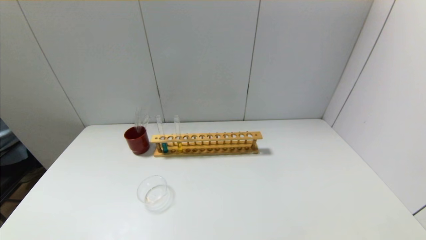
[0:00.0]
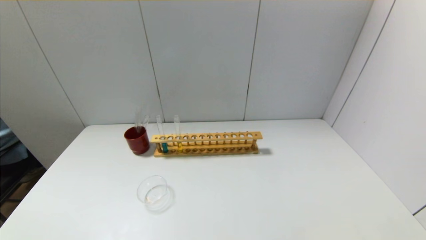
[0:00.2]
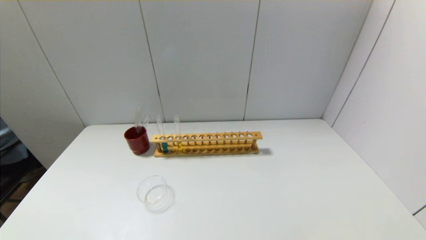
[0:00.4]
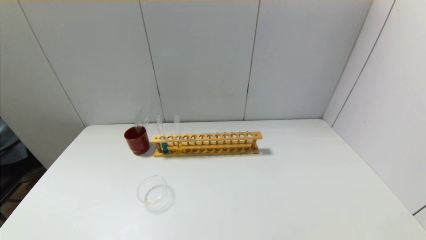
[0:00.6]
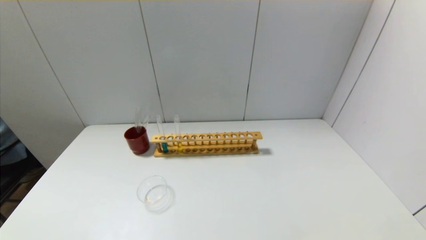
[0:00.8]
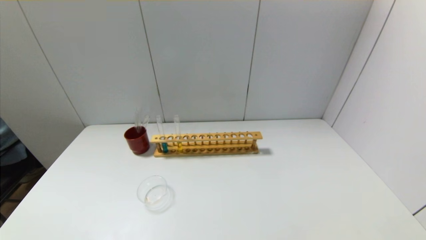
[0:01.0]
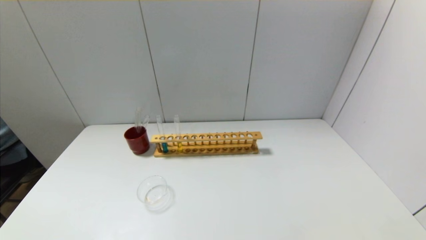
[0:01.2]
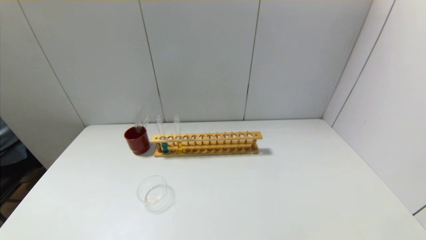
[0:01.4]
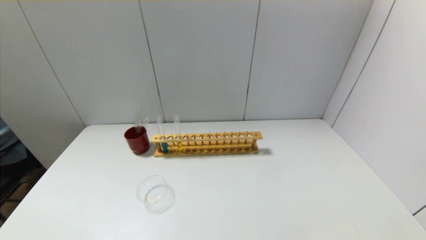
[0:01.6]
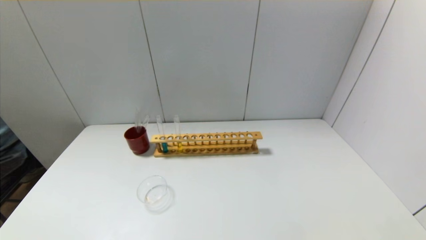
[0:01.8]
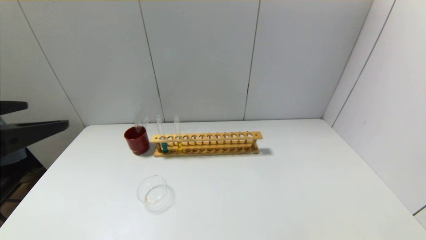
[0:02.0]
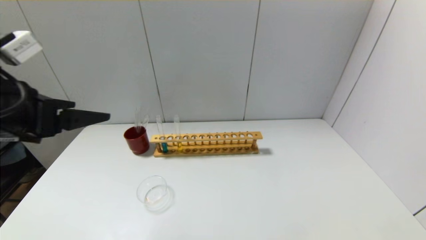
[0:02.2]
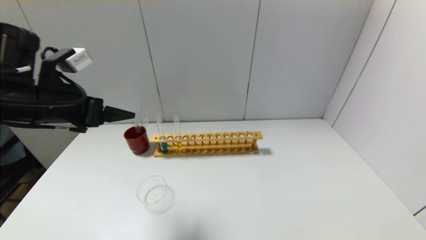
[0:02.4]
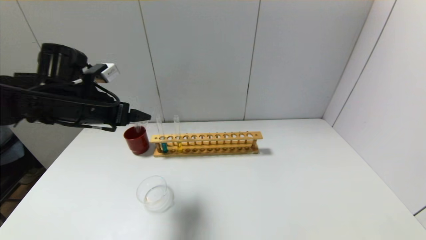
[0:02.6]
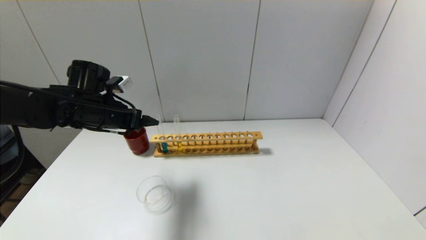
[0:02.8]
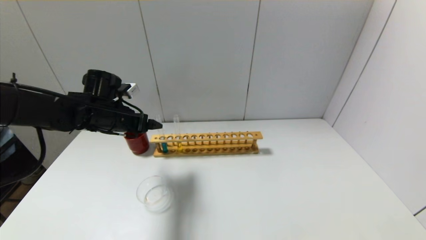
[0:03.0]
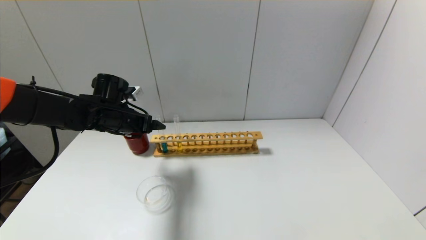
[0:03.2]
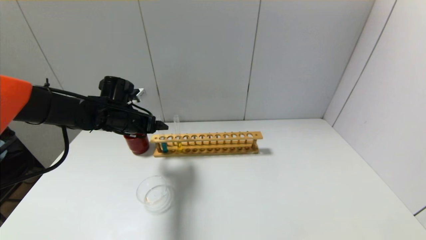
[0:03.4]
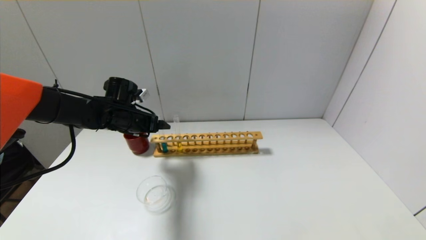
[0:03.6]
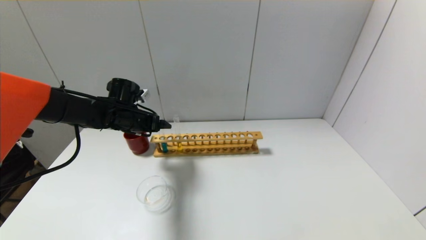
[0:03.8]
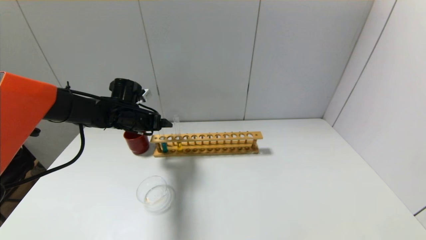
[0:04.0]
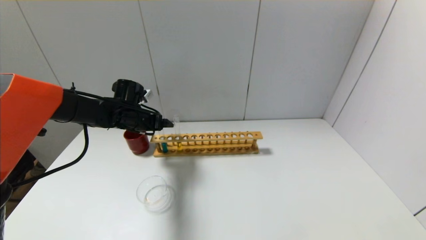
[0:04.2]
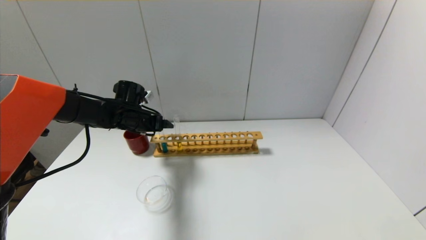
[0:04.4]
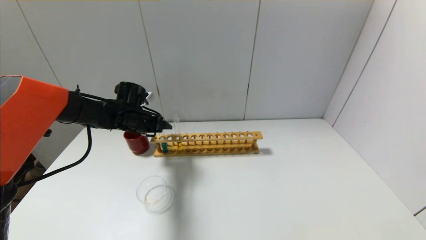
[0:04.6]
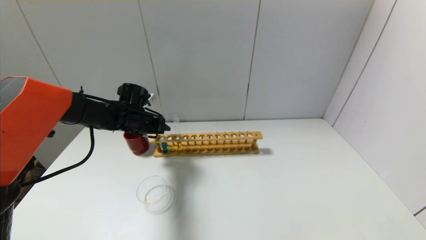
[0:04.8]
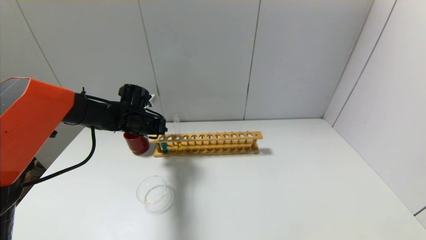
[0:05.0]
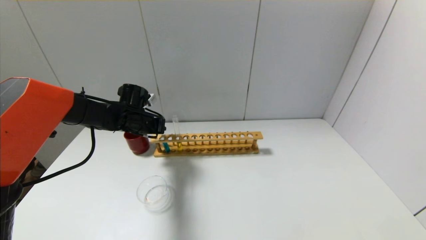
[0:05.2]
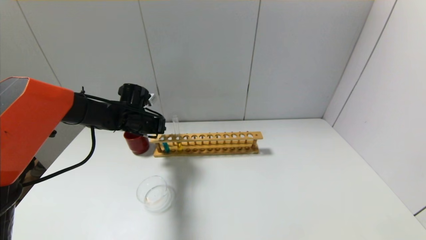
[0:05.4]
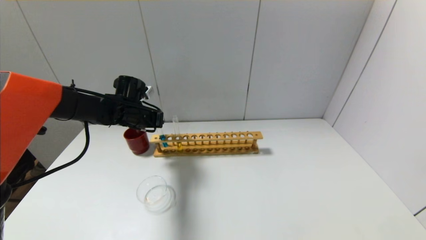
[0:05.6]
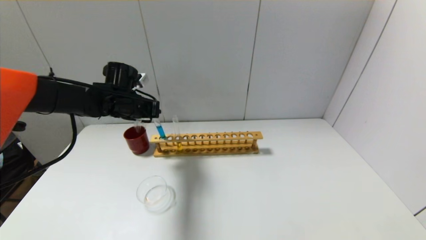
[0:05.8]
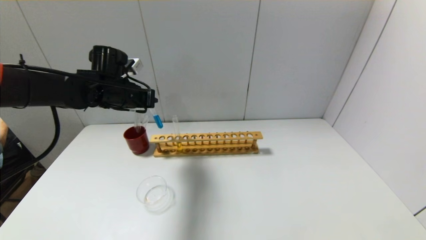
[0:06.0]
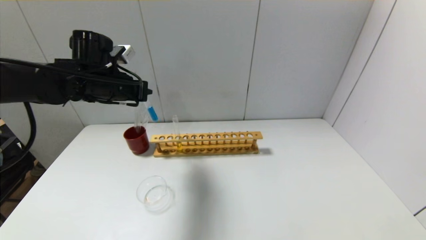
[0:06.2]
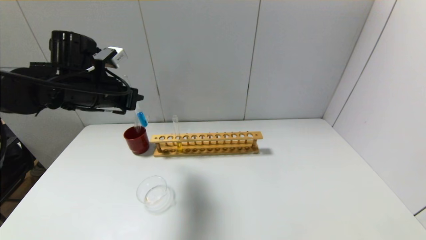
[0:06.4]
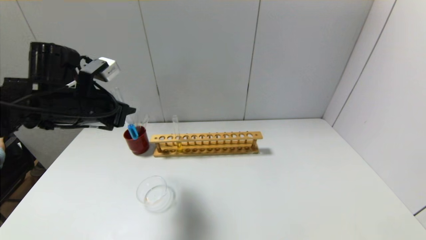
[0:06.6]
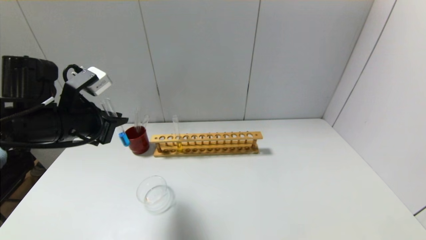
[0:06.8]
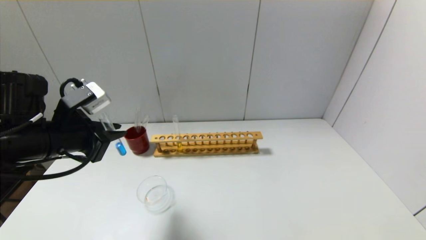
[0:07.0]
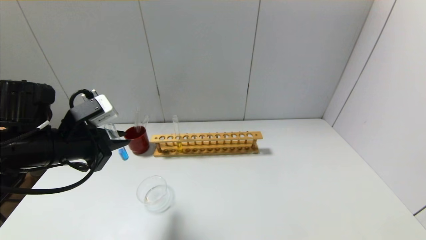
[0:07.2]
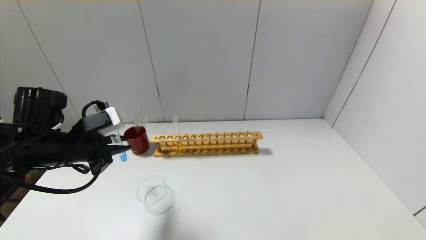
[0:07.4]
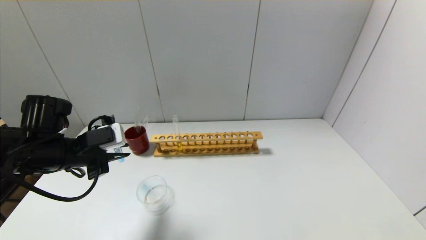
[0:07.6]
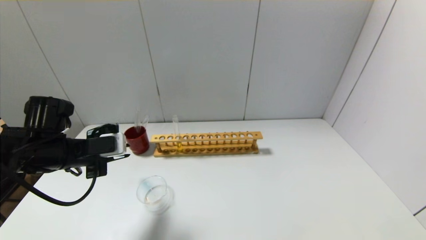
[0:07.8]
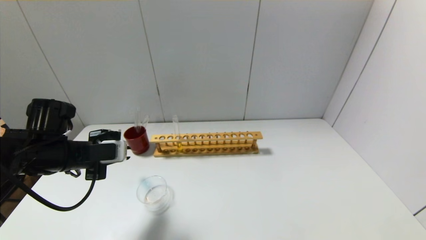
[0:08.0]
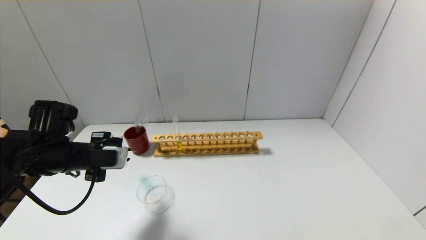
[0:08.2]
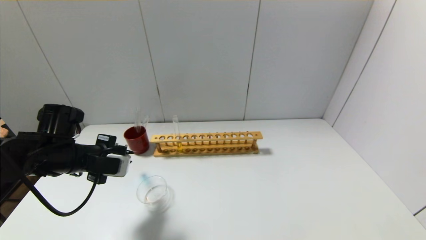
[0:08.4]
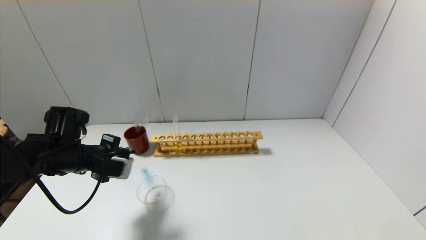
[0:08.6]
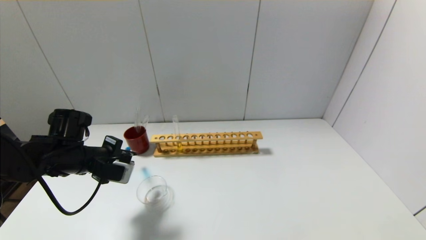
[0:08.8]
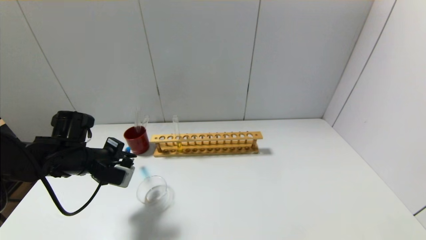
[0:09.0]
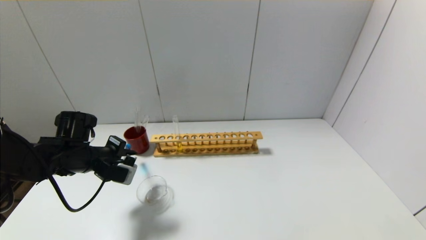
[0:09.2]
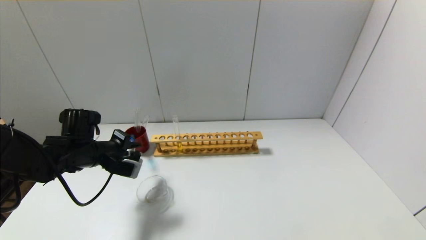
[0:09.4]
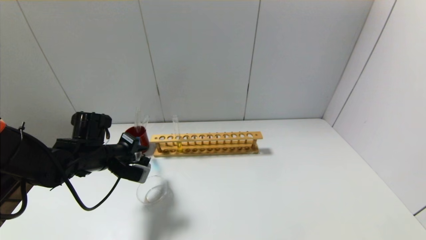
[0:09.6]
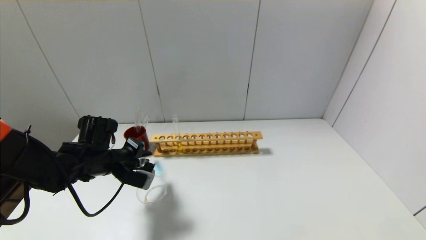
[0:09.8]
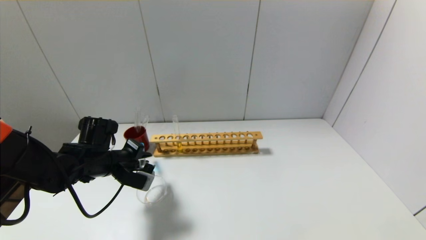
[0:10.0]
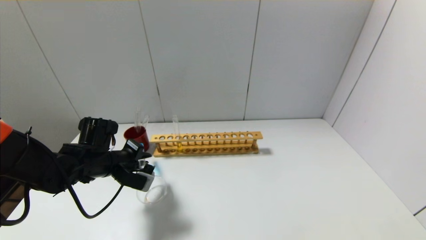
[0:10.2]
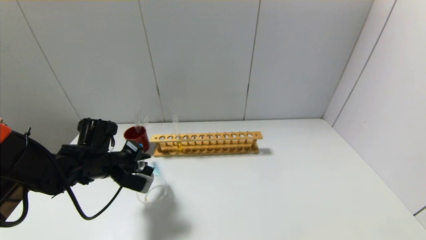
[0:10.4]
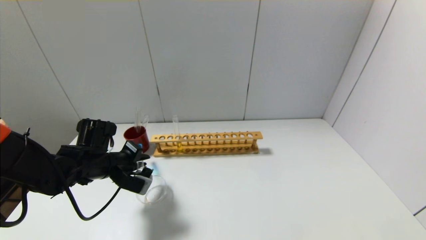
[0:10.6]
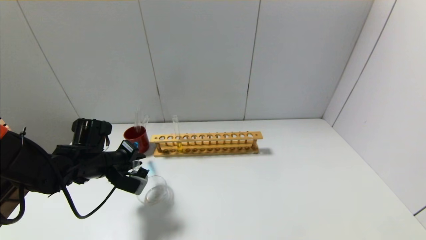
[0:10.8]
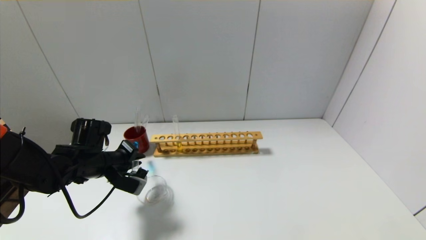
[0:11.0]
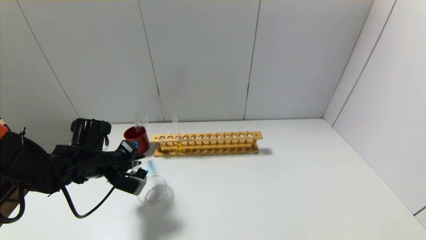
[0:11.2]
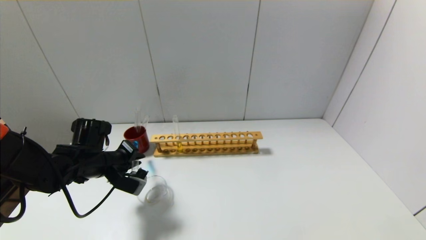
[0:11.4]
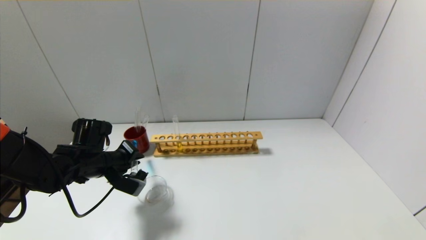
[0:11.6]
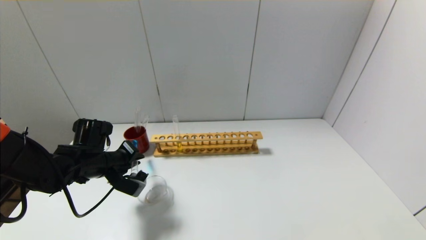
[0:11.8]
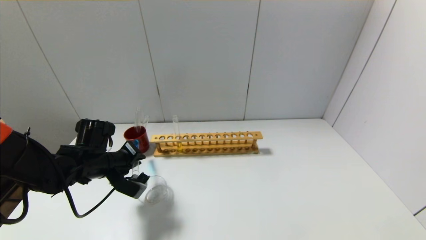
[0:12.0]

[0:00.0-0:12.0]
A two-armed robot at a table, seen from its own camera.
Step, 0:00.0 to 0:05.0: Grasp the blue reagent with the left gripper.
0:01.6 to 0:03.0: The left gripper shifts some 35 cm forward.
0:03.0 to 0:04.4: The left gripper heads forward, covering about 5 cm.
0:04.4 to 0:06.0: The left gripper moves upward, about 10 cm, and closes.
0:06.0 to 0:07.6: The left gripper goes approximately 15 cm backward, downward and to the left.
0:07.6 to 0:09.0: The left gripper shifts roughly 5 cm downward.
0:09.0 to 0:10.4: There are only small adjustments of the grippers.
0:10.4 to 0:12.0: The grippers move only a little.

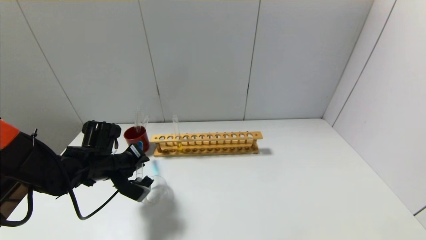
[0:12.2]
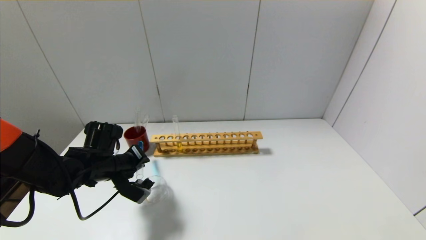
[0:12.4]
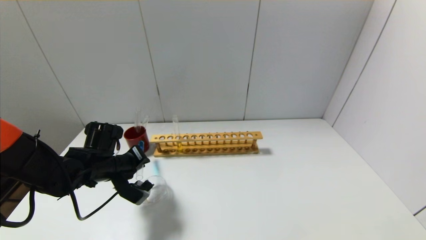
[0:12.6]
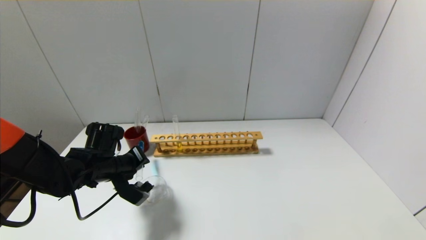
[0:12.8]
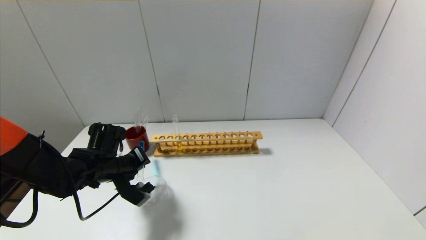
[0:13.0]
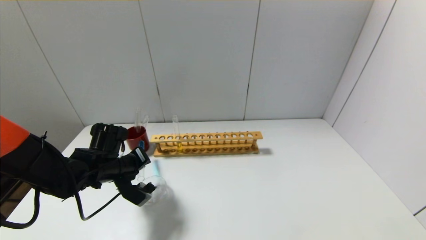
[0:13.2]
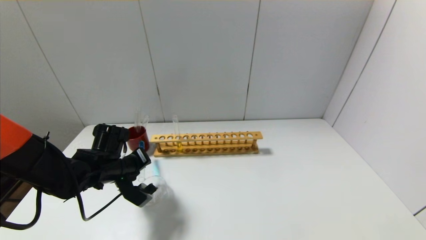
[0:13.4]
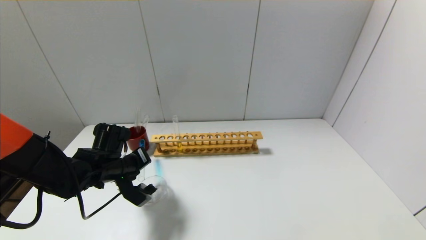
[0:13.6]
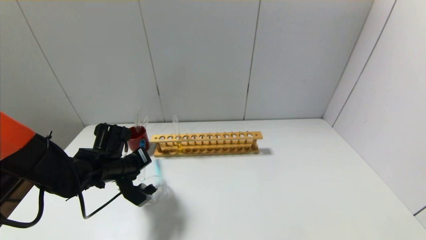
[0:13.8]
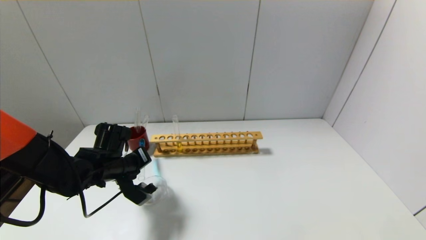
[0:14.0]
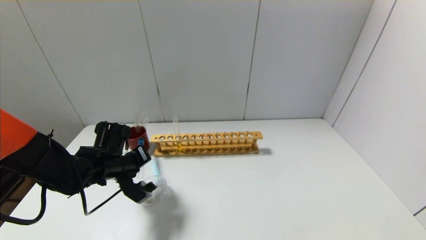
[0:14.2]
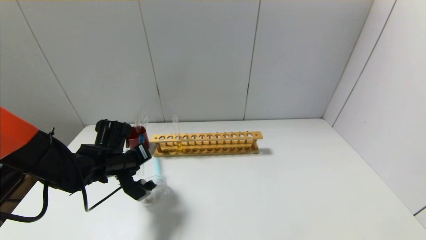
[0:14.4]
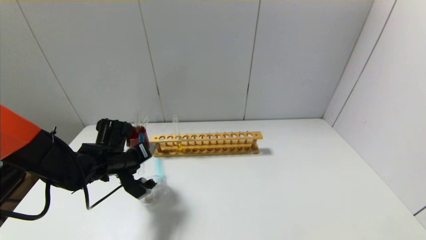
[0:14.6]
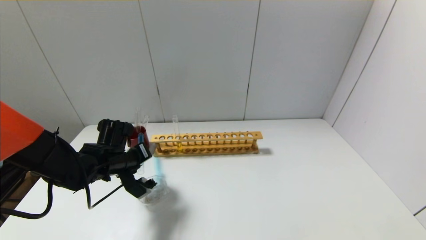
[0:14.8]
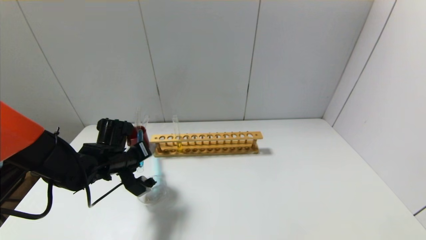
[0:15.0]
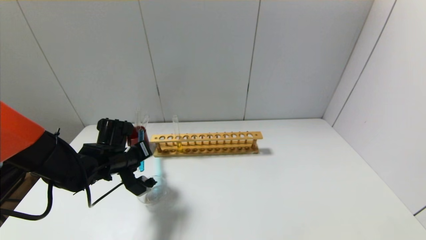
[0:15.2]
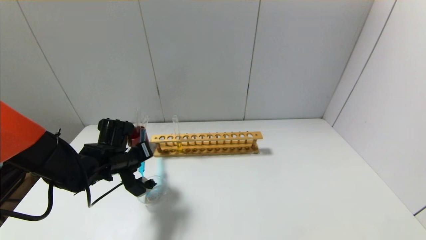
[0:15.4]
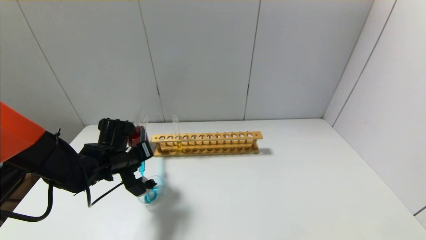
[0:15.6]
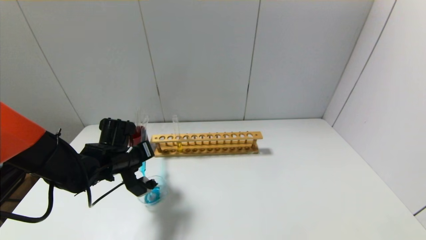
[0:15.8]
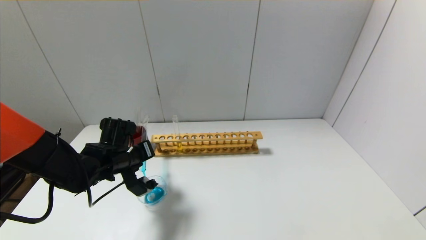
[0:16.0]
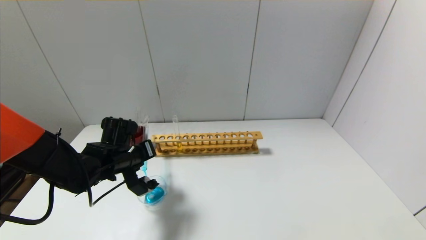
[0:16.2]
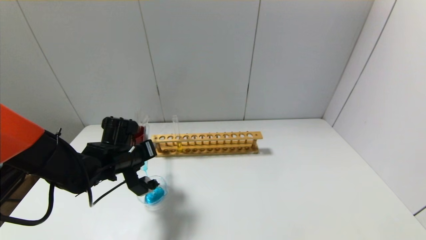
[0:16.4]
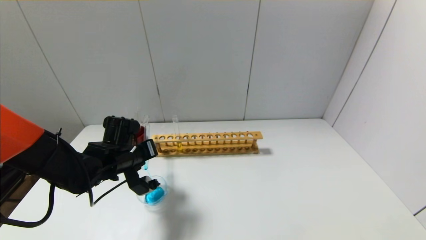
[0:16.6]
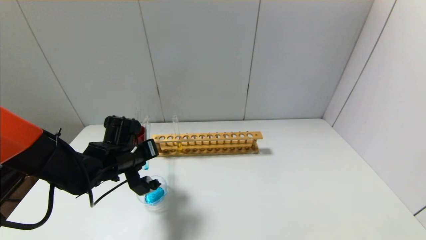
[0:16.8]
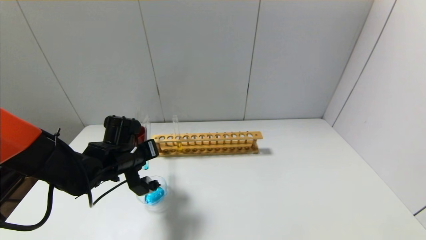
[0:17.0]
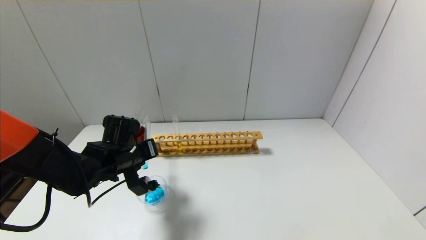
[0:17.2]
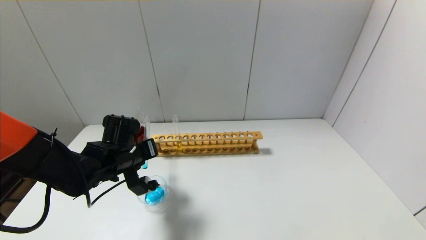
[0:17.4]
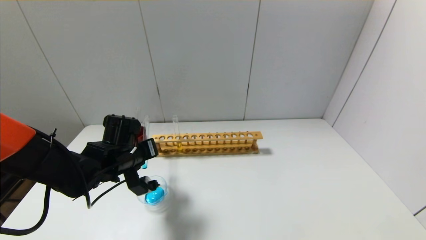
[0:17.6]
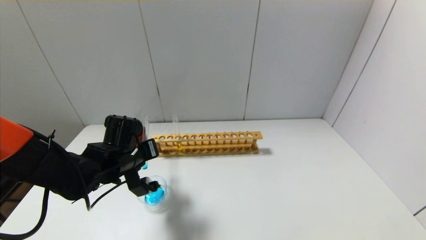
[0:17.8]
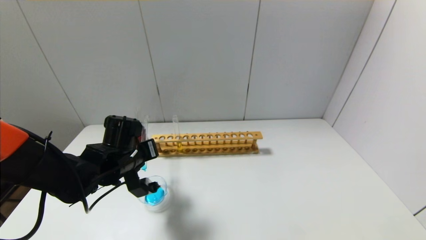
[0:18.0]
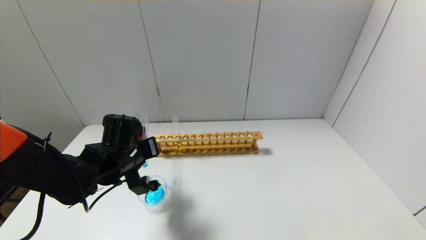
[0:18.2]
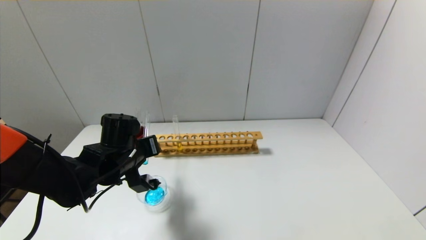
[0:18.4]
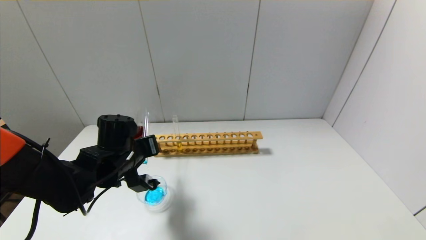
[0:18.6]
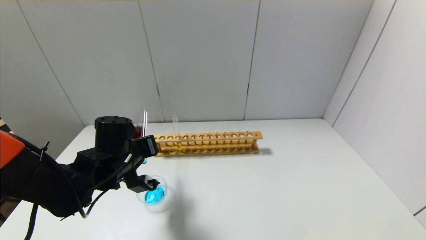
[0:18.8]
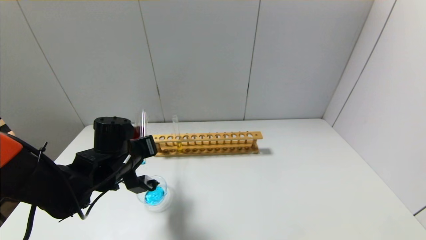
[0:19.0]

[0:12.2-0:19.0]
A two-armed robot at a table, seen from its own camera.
0:12.2 to 0:13.6: The grippers make only small movements.
0:13.6 to 0:16.2: The grippers stay close to where they were, moving slightly.
0:16.2 to 0:19.0: The grippers stay close to where they were, moving slightly.
